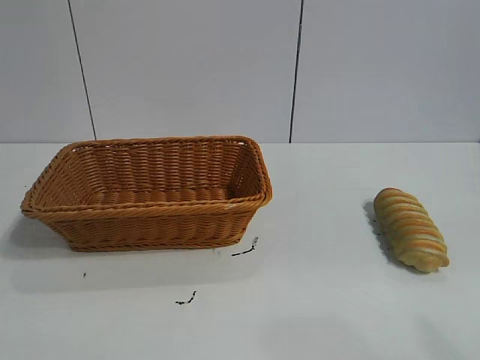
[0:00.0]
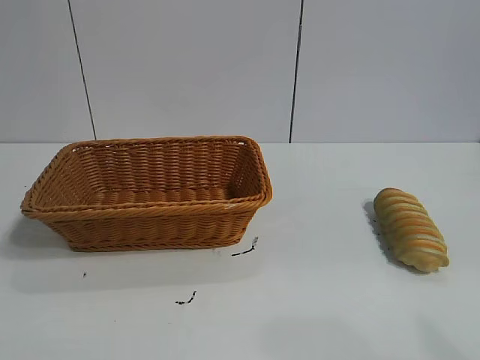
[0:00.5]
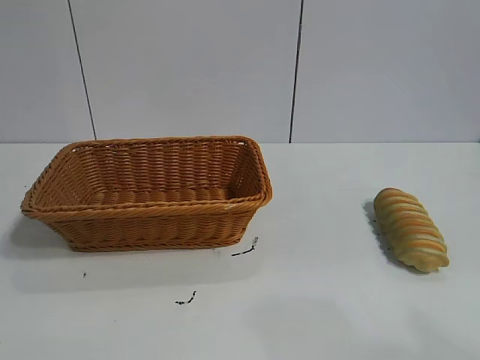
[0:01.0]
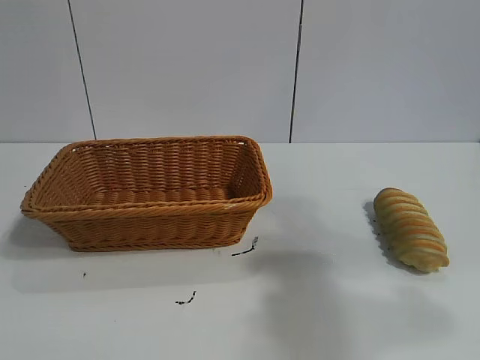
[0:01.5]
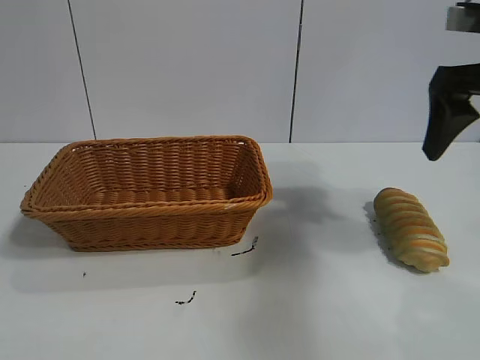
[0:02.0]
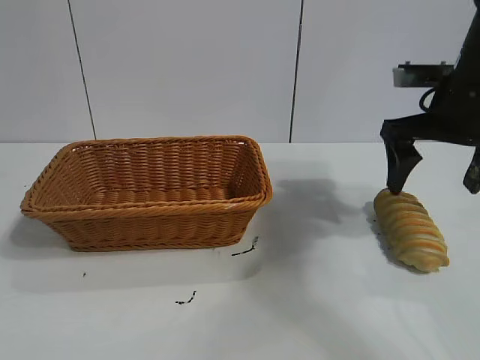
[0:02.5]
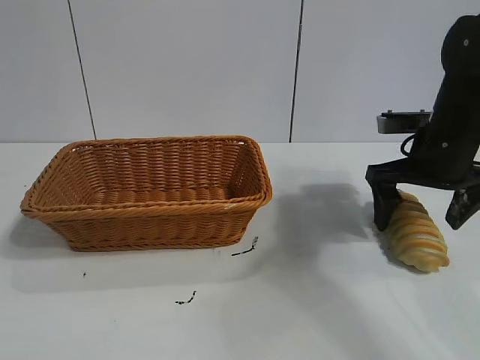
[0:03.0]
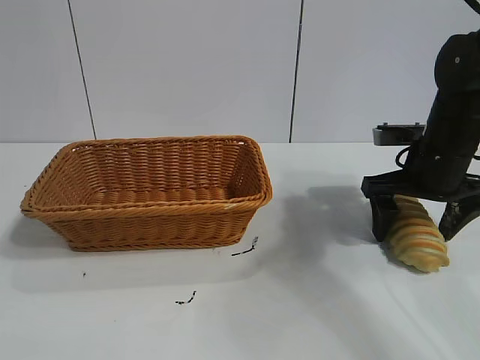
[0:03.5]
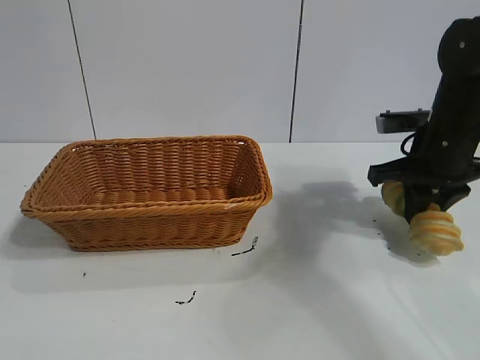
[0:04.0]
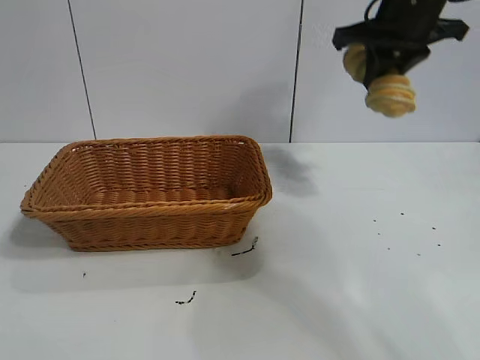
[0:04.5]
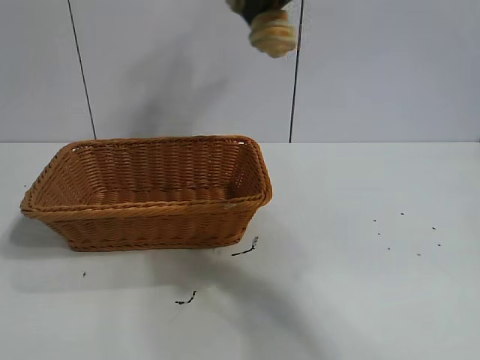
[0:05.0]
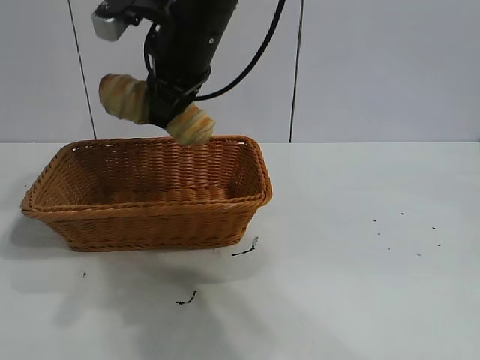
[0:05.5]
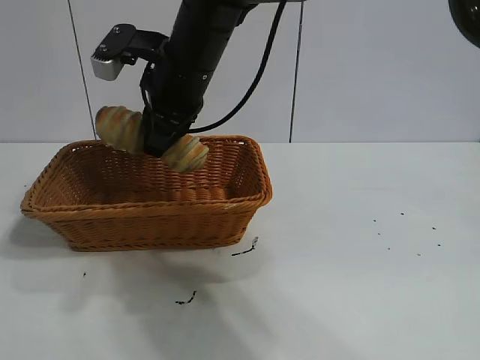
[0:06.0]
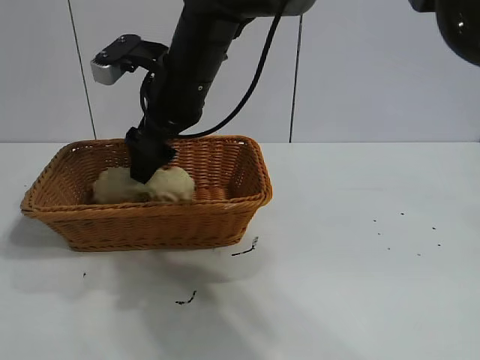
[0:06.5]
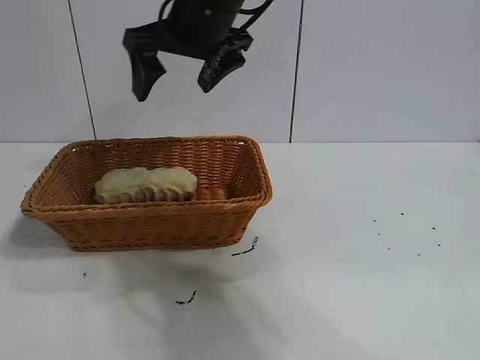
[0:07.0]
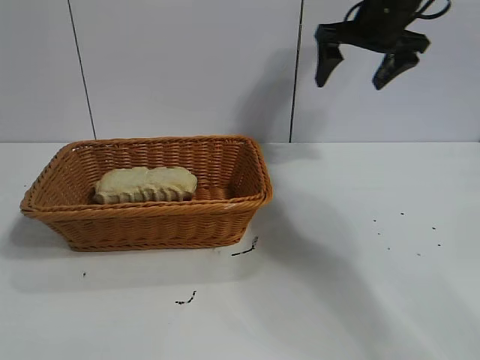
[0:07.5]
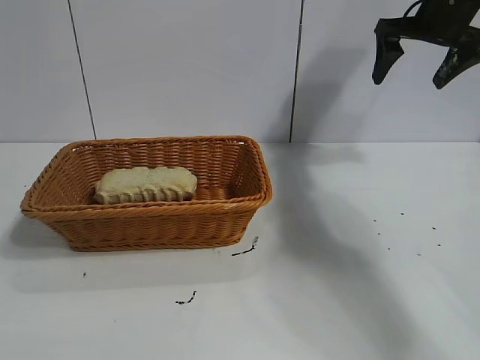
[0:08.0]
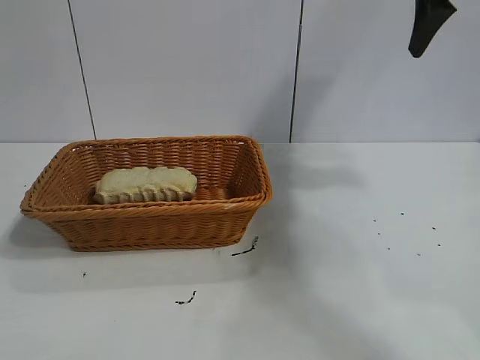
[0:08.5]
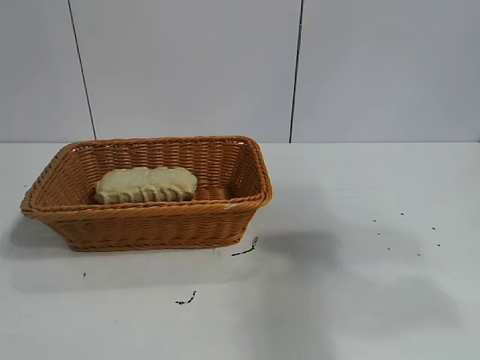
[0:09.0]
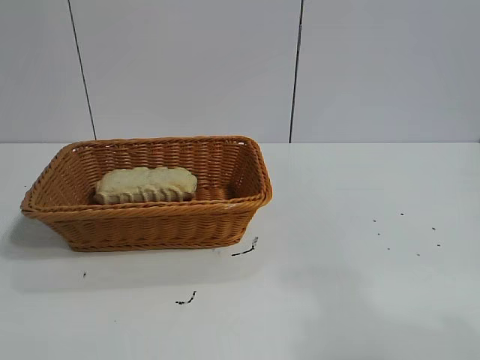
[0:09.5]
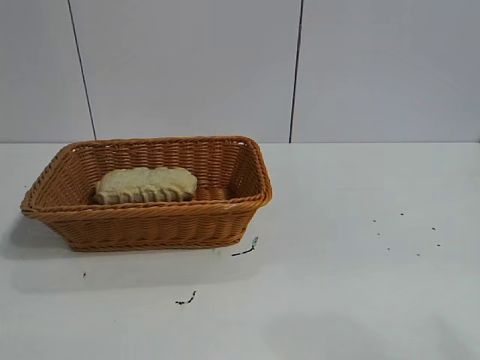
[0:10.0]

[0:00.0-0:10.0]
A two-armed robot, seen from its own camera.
Task of the whole recording: pick up the long bread and put it into the basket.
Step, 0:02.0 to 0:03.5: Grasp the long bread with right gripper.
Step, 0:04.5 to 0:06.5: Place the long bread in the basket with right gripper.
